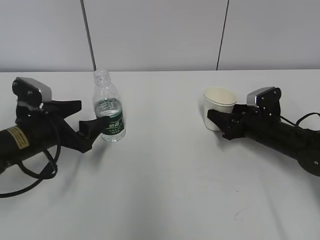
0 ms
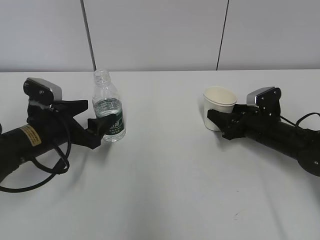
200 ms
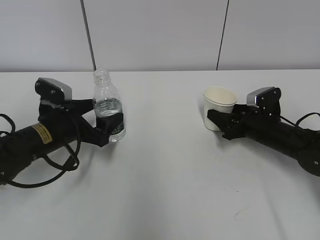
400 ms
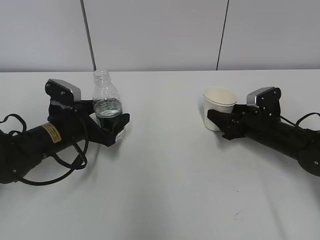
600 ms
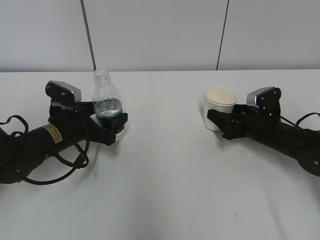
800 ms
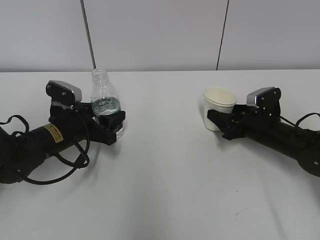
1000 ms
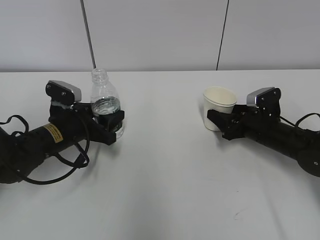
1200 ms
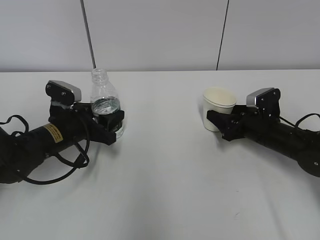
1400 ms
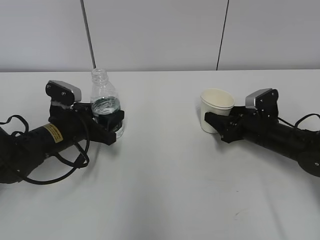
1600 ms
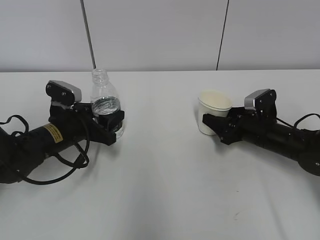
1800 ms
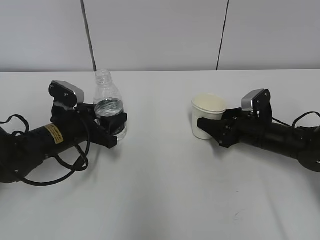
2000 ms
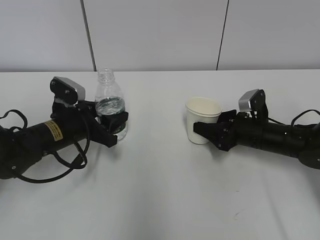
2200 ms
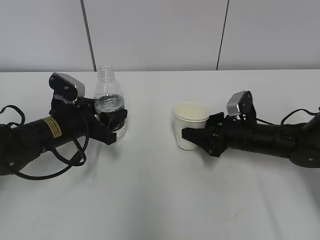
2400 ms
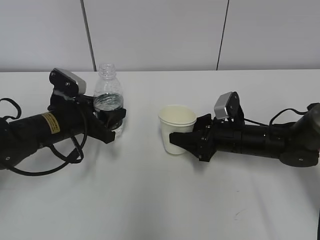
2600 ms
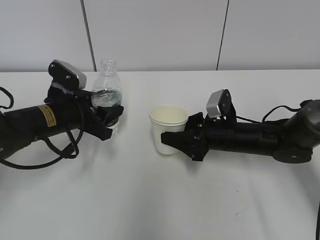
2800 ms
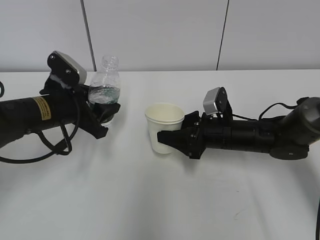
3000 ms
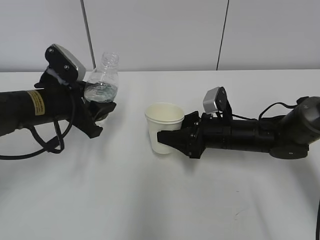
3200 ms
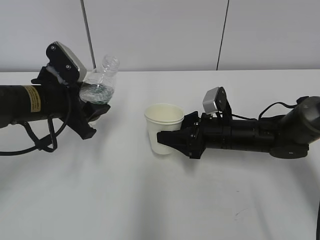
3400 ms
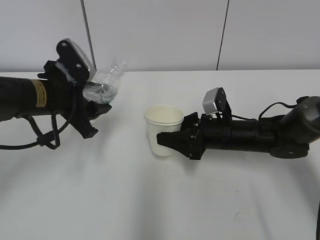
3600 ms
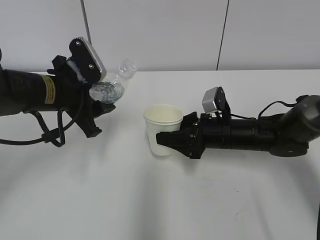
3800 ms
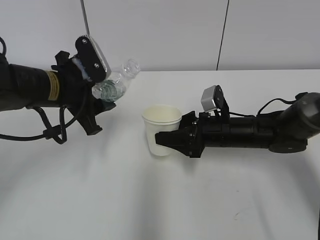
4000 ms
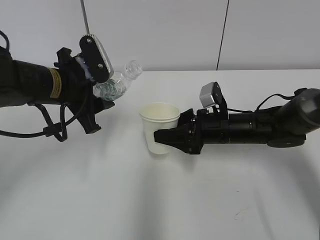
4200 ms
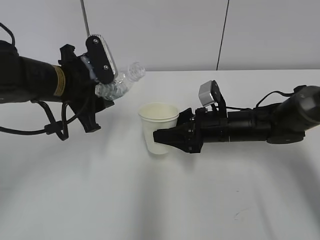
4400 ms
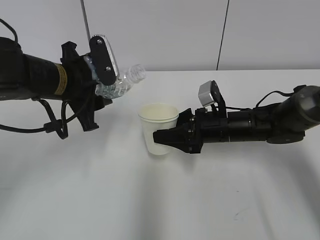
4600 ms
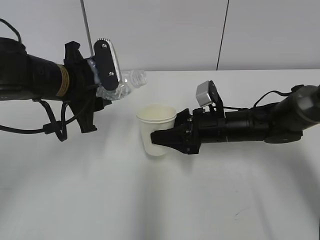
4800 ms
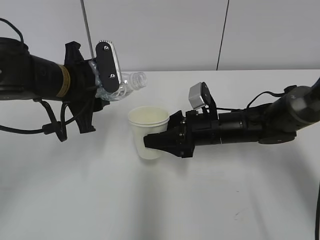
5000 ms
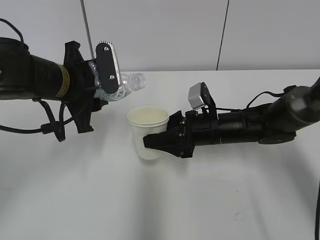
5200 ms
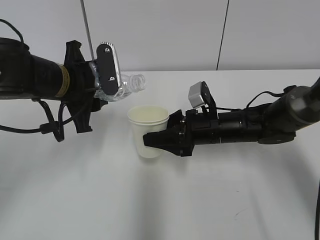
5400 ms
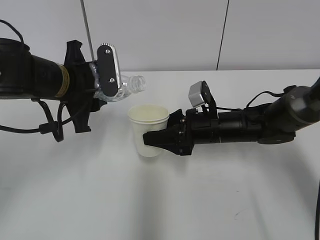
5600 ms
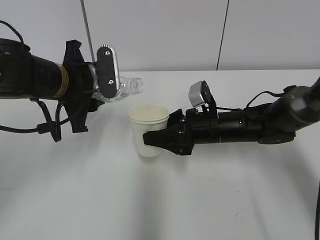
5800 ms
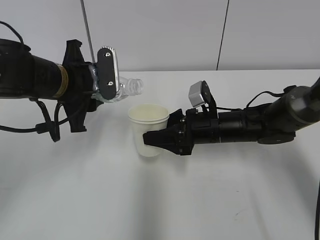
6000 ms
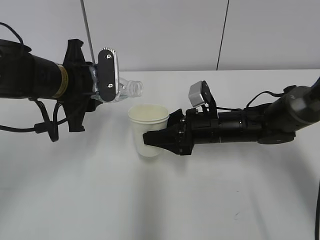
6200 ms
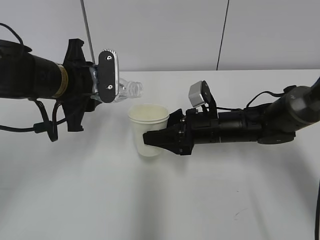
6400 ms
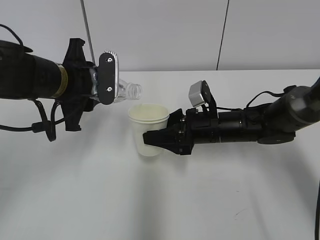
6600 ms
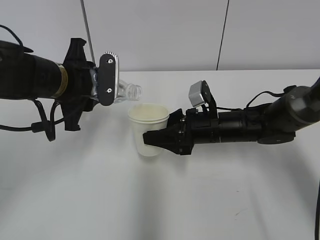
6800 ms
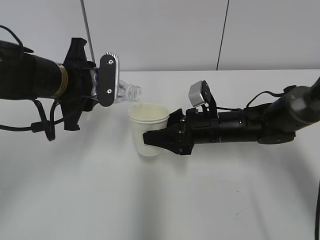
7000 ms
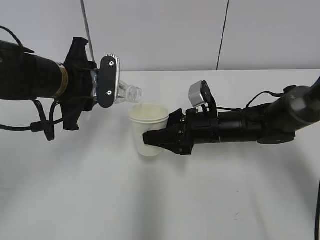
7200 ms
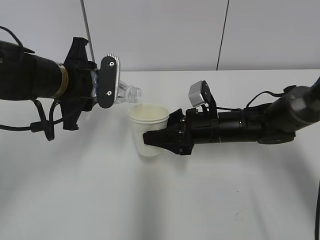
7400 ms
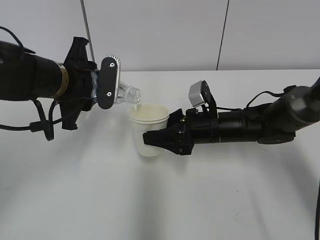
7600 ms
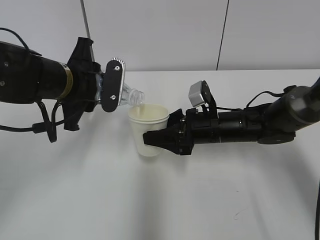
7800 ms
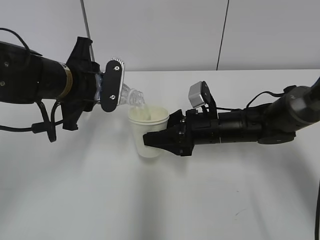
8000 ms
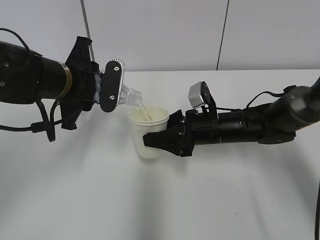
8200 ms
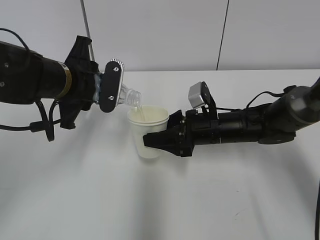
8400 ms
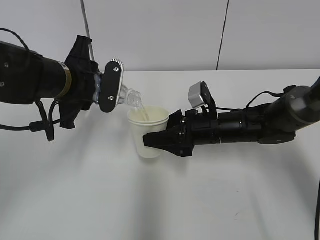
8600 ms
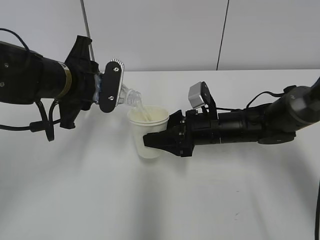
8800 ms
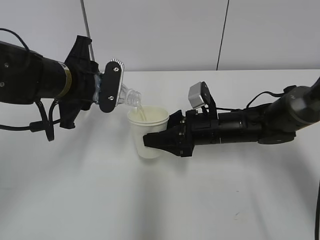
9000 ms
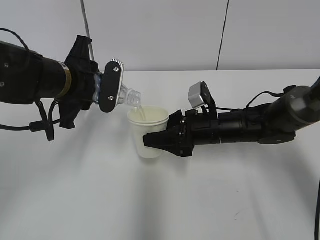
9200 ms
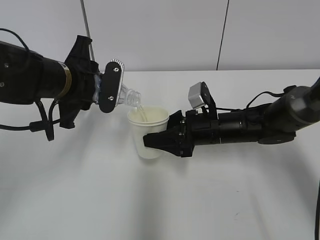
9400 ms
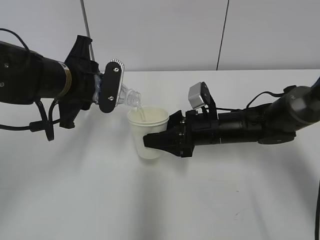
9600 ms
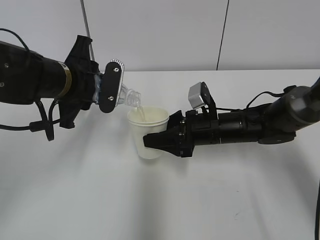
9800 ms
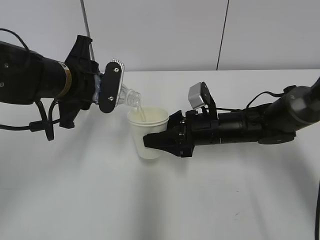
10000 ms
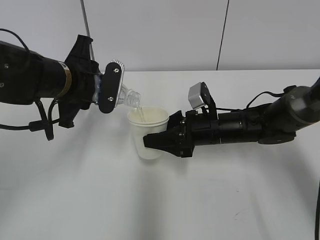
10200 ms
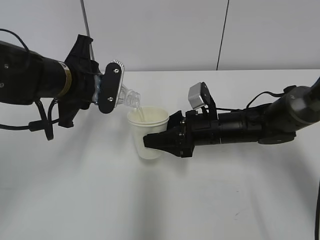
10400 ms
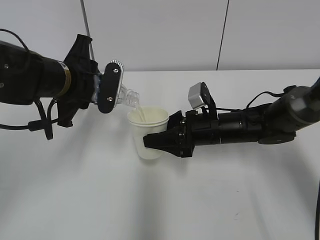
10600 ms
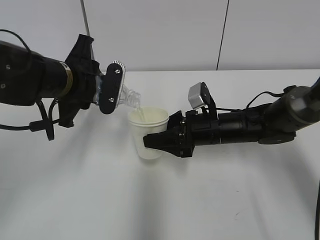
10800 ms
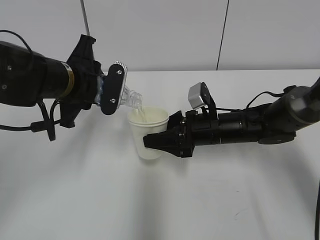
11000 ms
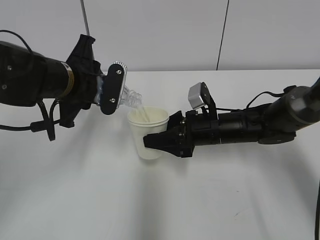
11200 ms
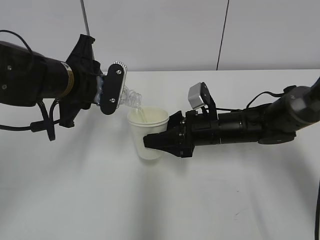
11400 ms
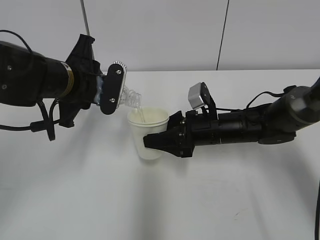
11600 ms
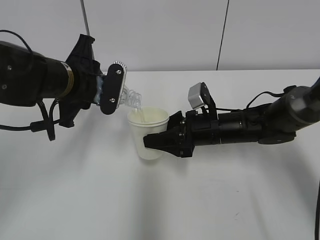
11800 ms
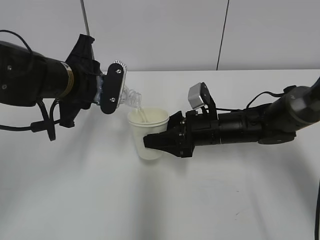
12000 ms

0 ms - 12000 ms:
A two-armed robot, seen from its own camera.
Step, 0 ms - 4000 ms: Lift the paper cup with the right hand.
Step, 4200 ms - 8400 ms: Fill water with the right hand.
Step, 4200 ms - 8400 ms: Pour water with the left hand.
0 ms - 1600 ms: The left gripper moves some 5 cm, and closes up.
1600 ms - 3000 ms: The left gripper is displaced upward by roughly 5 cm. Meanwhile the right gripper goes roughly 10 cm to the left.
3000 ms - 4400 ms: The left gripper travels upward by about 5 cm.
4400 ms - 6000 ms: The grippers stay close to where they were, moving slightly.
6000 ms - 9000 ms: The grippers stay close to where they were, moving slightly.
9000 ms - 12000 ms: The two grippers keep their place.

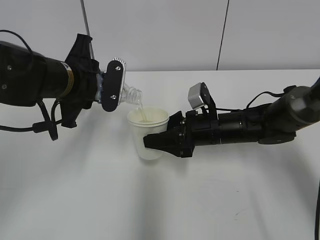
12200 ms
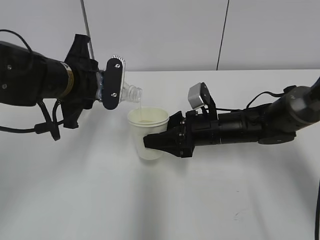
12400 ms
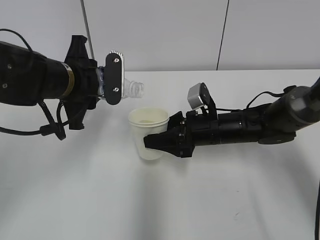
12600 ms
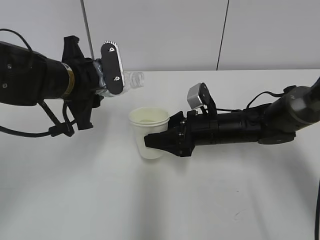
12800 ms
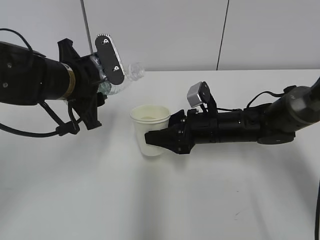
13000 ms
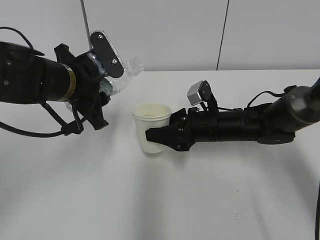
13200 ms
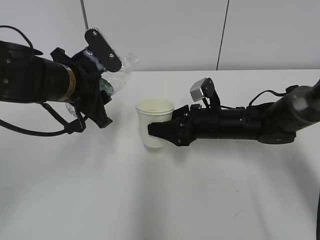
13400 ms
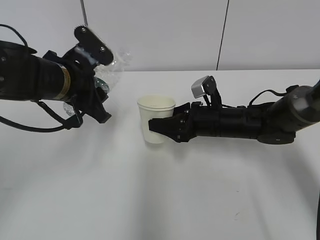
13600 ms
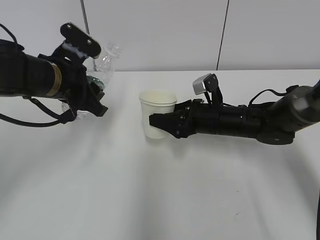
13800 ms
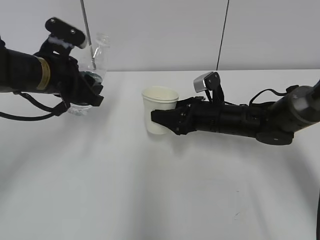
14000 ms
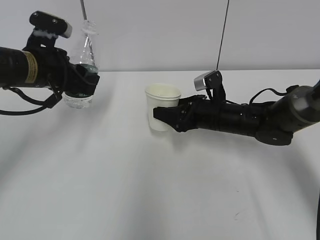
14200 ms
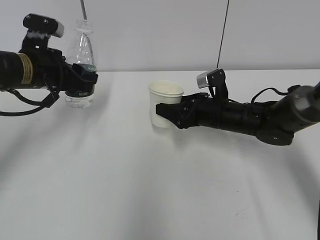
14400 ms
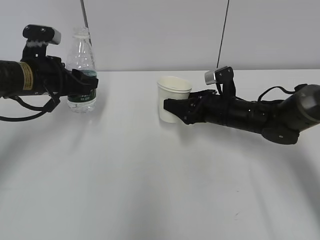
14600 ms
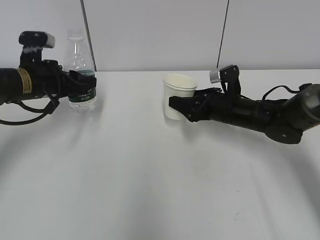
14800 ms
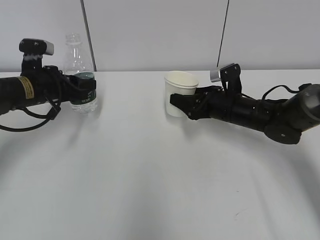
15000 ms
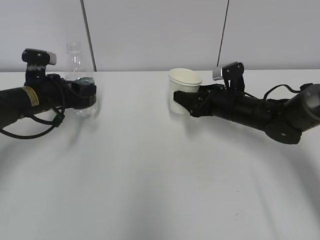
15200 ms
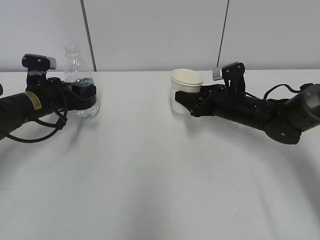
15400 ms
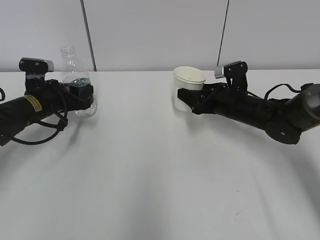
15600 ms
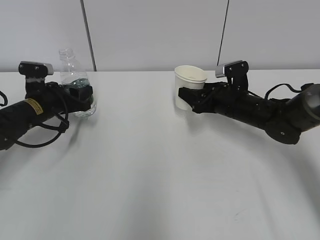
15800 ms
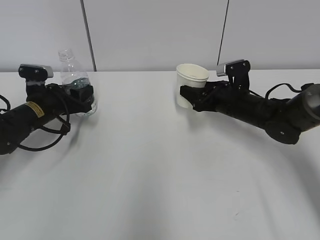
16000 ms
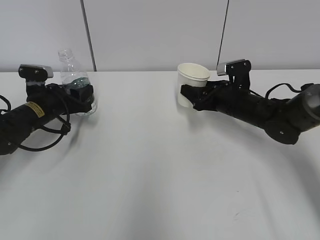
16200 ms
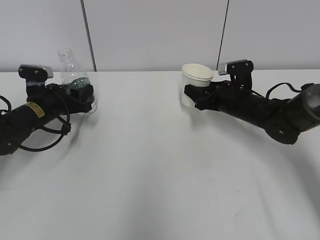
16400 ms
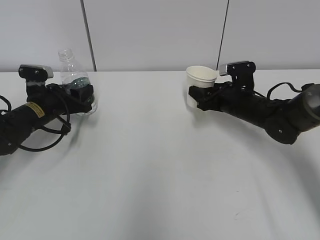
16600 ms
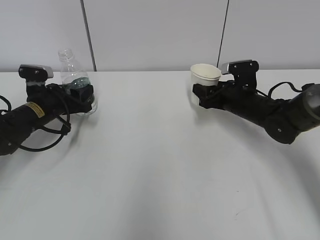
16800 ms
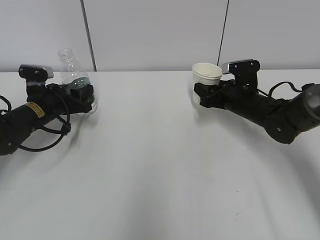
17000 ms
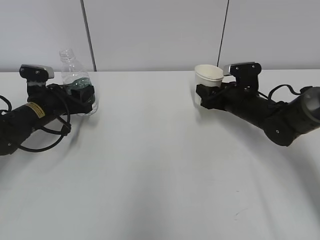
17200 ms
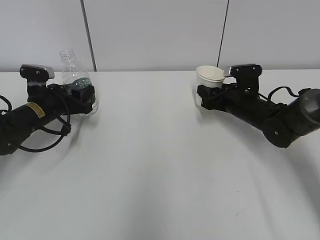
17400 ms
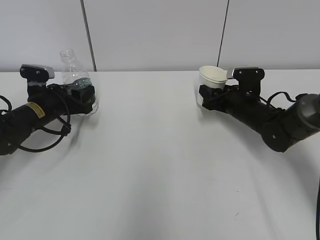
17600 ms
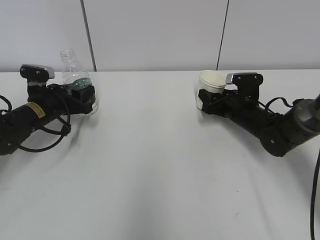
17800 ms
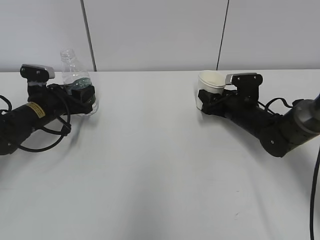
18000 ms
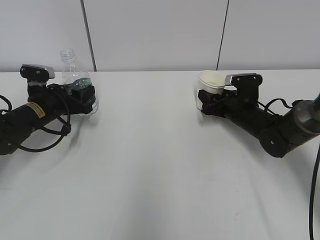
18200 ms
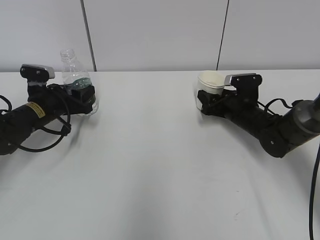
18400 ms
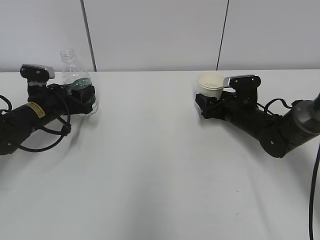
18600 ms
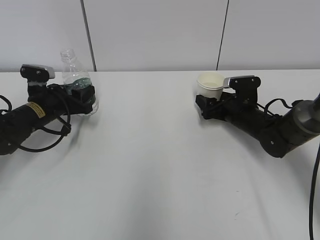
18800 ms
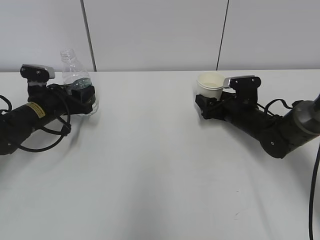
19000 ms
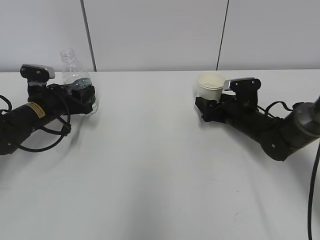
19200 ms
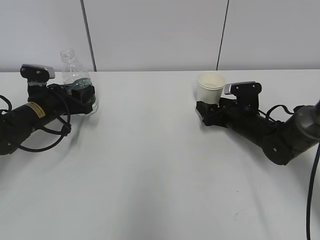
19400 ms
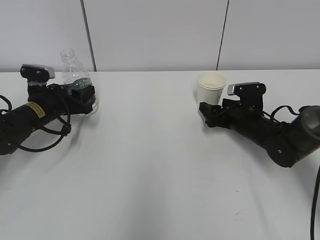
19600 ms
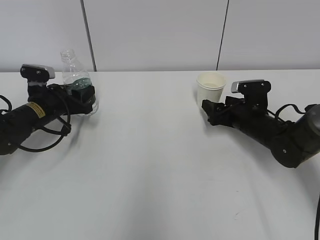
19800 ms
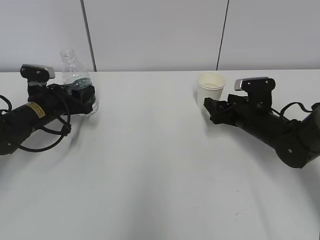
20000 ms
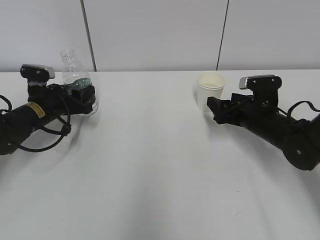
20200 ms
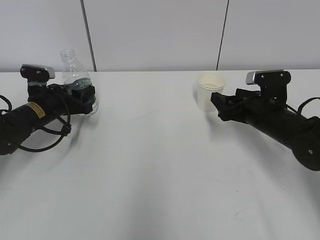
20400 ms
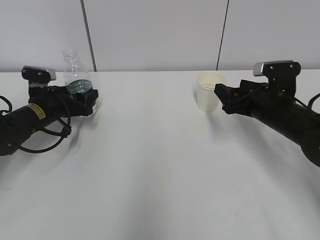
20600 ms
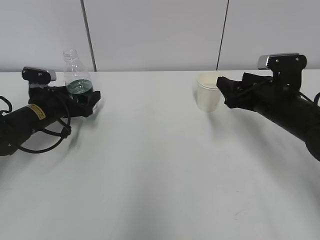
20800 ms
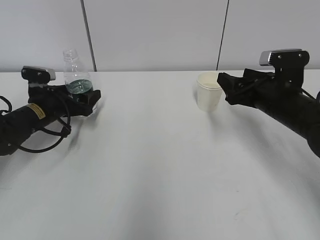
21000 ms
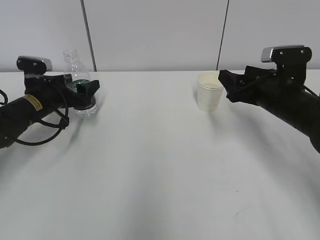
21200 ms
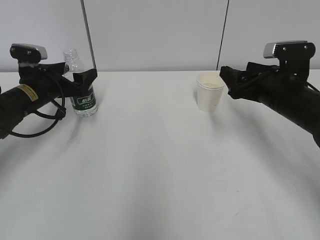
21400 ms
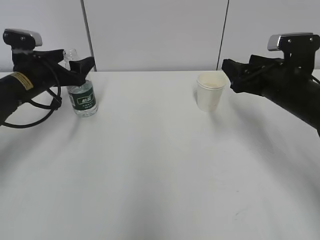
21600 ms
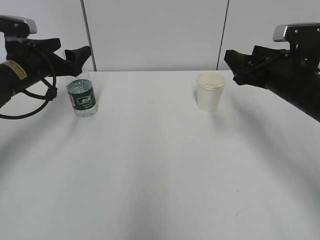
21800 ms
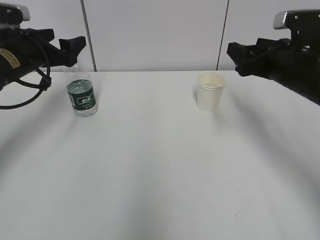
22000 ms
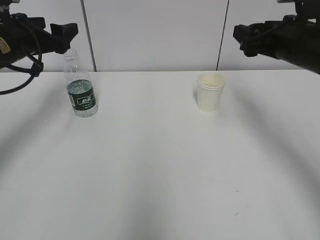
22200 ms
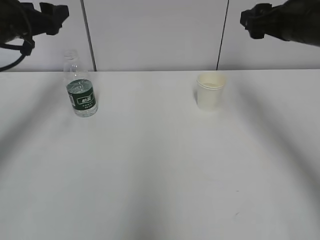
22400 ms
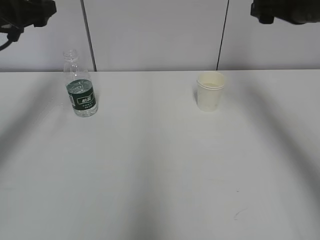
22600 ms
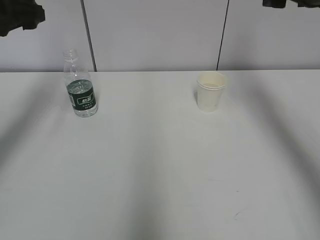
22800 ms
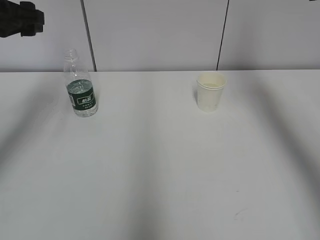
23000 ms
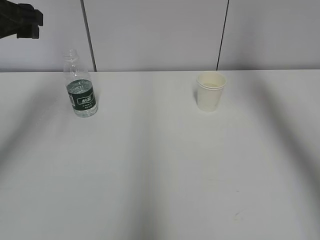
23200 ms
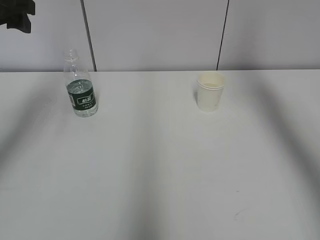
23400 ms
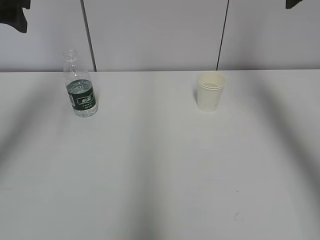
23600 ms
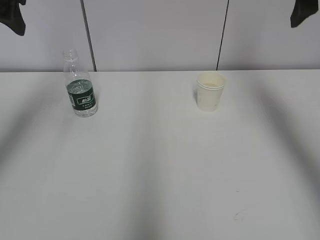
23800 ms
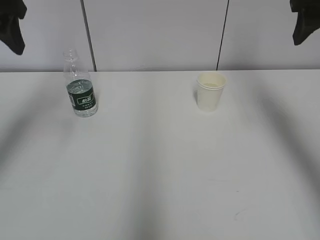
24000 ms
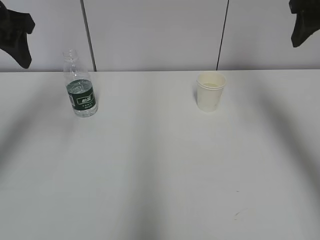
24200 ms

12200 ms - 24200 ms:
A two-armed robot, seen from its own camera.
Step, 14200 ms - 15200 ms: Place the water bottle with the left hand.
13800 ms - 15200 ms: The left gripper is displaced downward, to the left and forward by about 10 cm; the right gripper ends up about 5 cm from where it was.
15200 ms - 16600 ms: The grippers move only a little.
16600 ms - 18200 ms: The grippers move only a little.
18200 ms - 19800 ms: The right gripper opens up.
19800 ms - 21200 ms: The right gripper goes roughly 10 cm upward and backward, while the left gripper opens its fingers.
21200 ms - 22600 ms: The grippers both shift upward by approximately 15 cm.
22600 ms - 24200 ms: The left gripper moves backward and upward, about 10 cm. The right gripper shifts about 5 cm upward.
